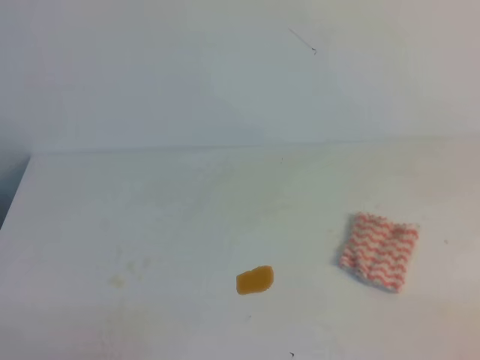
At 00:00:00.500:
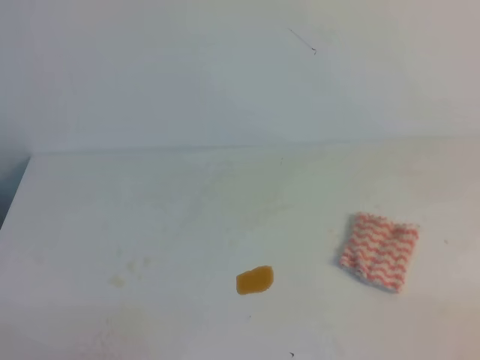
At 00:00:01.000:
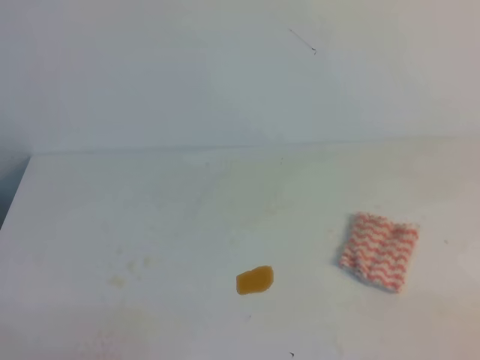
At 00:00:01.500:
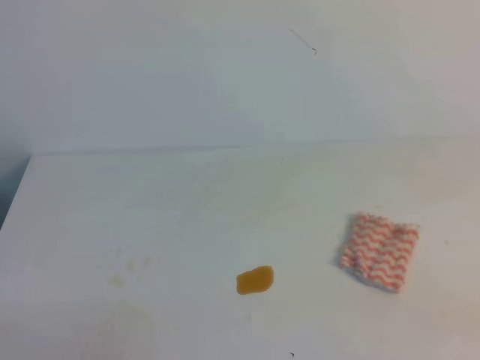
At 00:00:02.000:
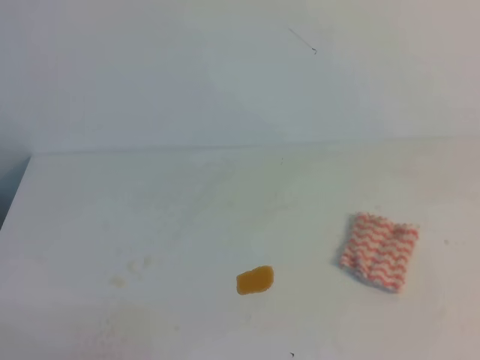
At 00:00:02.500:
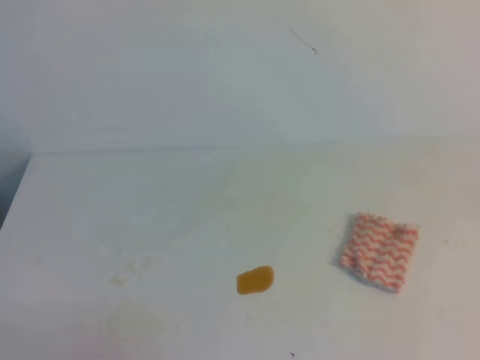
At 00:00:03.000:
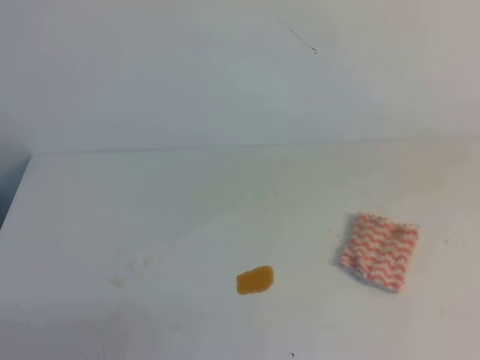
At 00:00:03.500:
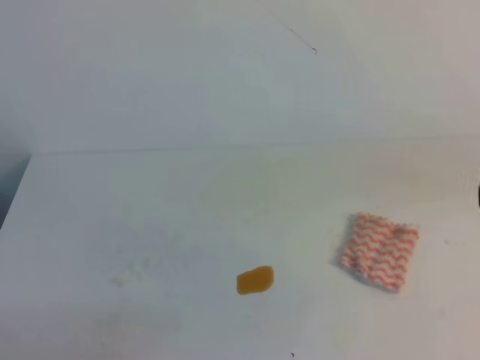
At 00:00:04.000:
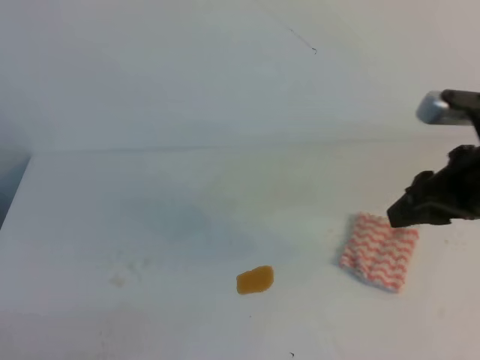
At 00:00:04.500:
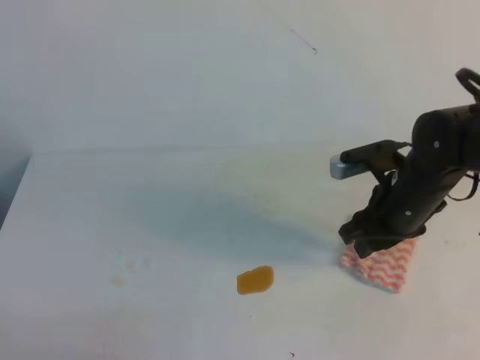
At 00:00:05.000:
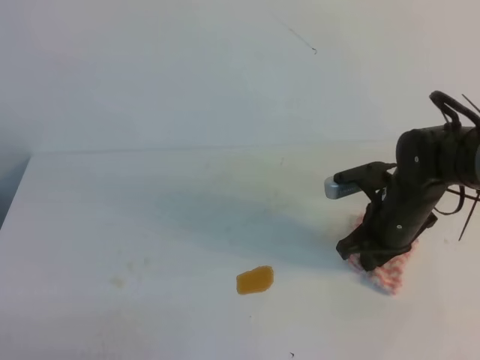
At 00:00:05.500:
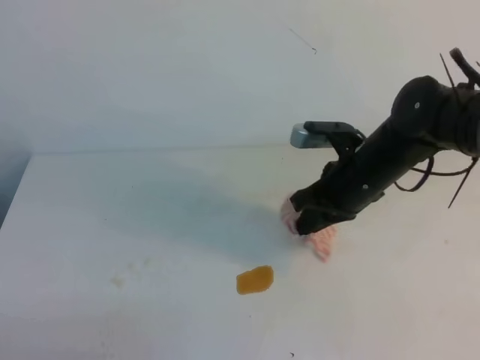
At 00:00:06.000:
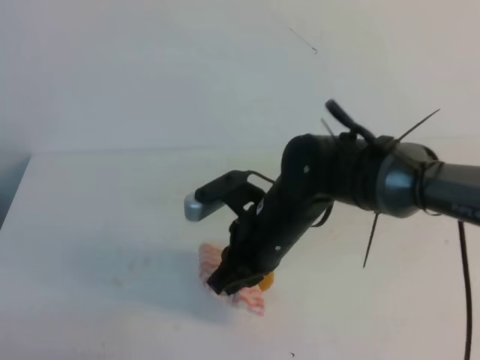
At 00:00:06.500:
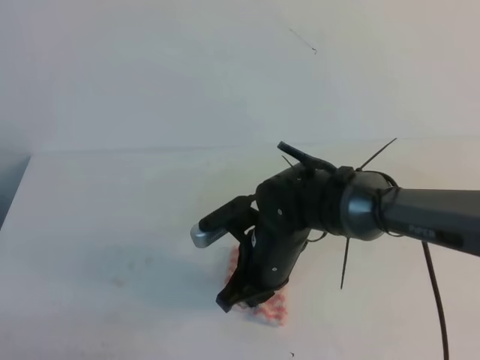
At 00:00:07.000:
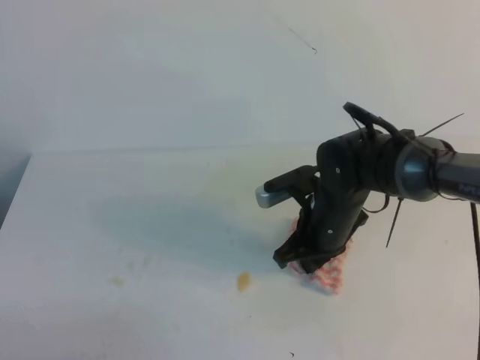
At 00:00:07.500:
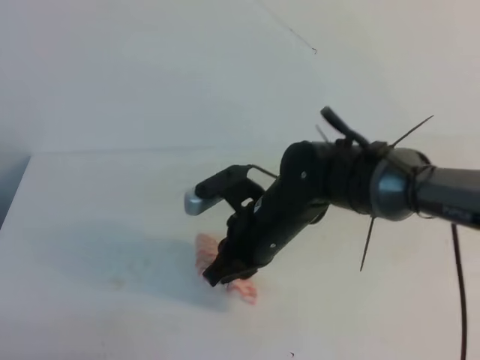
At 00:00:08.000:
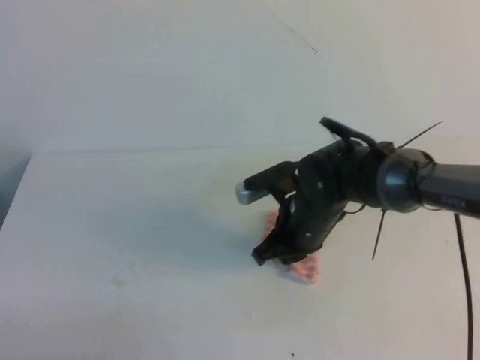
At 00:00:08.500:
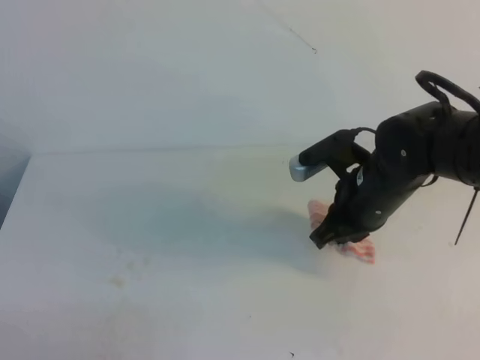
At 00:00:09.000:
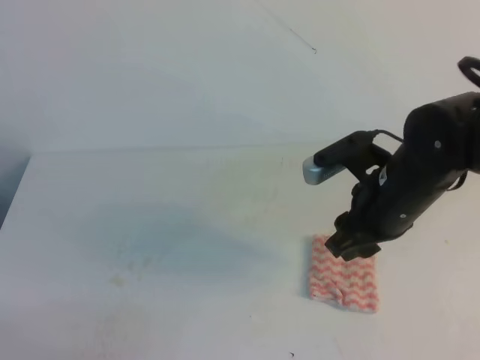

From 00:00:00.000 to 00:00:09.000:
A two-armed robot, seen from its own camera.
From 00:00:02.000 to 00:00:04.500: The right gripper goes approximately 35 cm forward and to the left, and opens.
From 00:00:04.500 to 00:00:07.000: The right gripper heads to the left, covering roughly 10 cm, and closes its fingers.
From 00:00:07.000 to 00:00:09.000: The right gripper is displaced upward and to the right by some 10 cm, and opens up.

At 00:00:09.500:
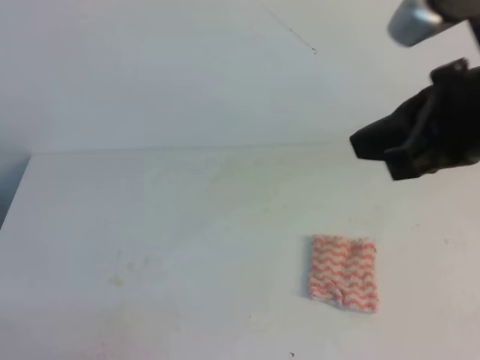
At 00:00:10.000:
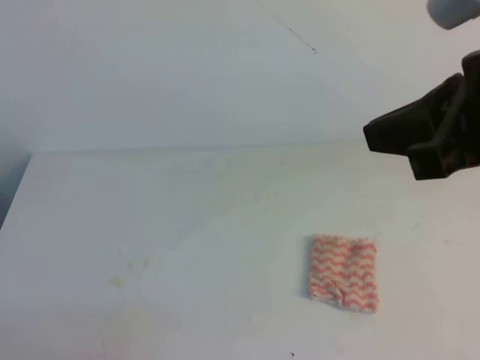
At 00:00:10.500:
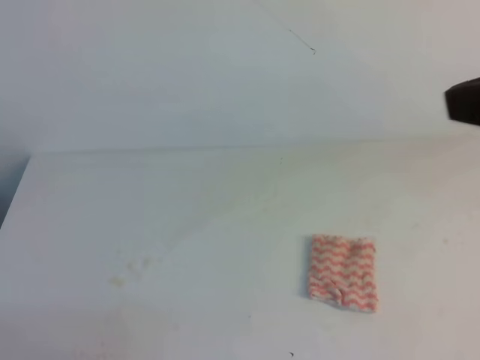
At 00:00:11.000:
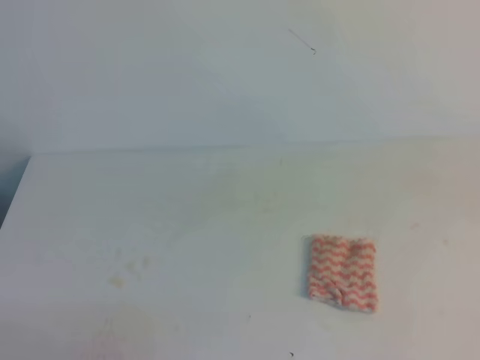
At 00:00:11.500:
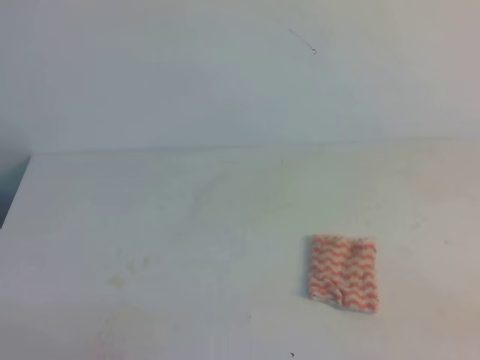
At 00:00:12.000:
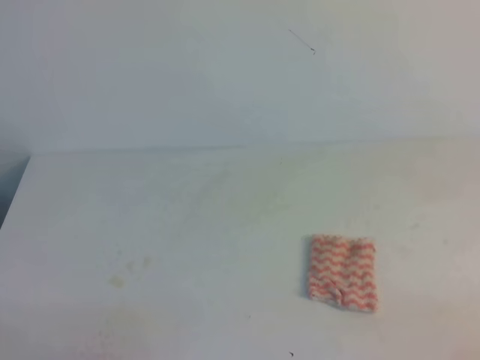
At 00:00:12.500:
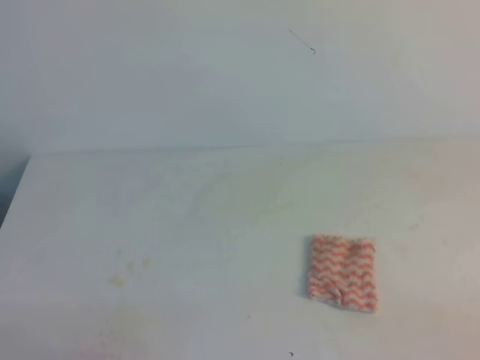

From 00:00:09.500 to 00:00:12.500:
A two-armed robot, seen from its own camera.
From 00:00:09.500 to 00:00:11.000: The right gripper is displaced backward and to the right by roughly 25 cm.
